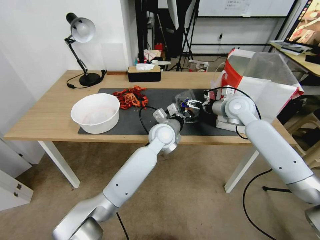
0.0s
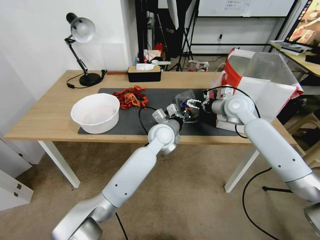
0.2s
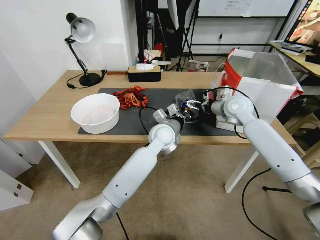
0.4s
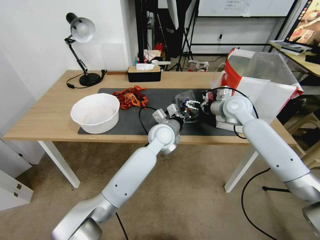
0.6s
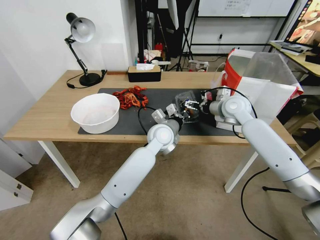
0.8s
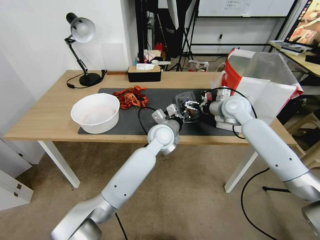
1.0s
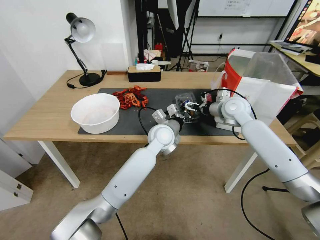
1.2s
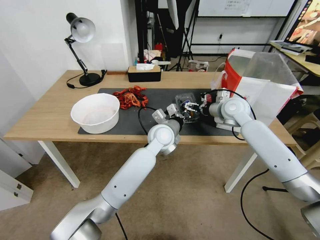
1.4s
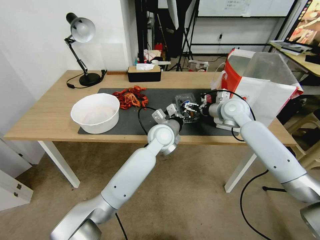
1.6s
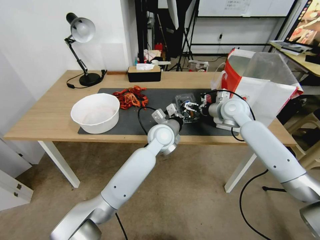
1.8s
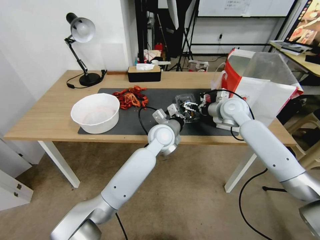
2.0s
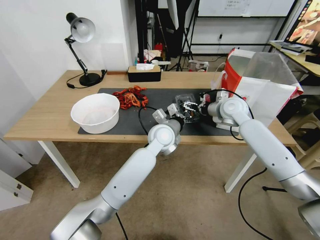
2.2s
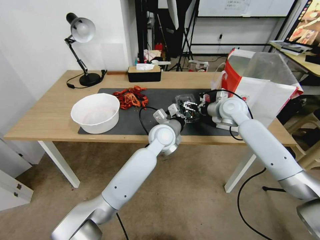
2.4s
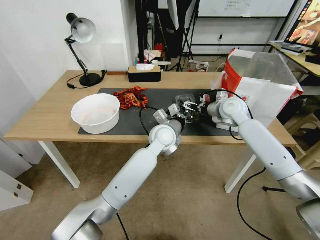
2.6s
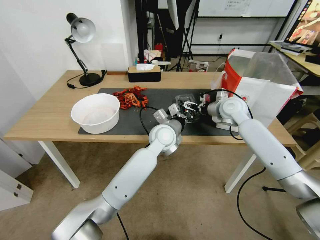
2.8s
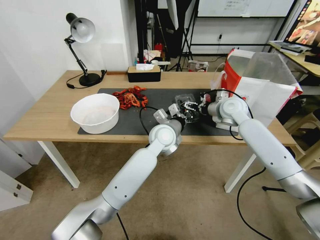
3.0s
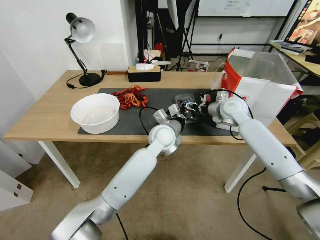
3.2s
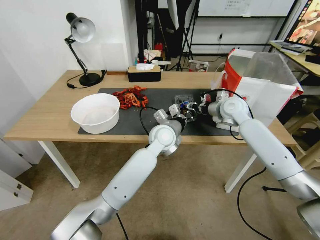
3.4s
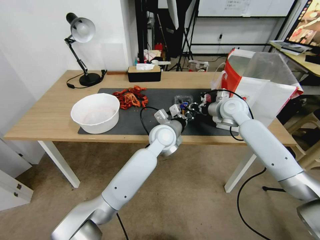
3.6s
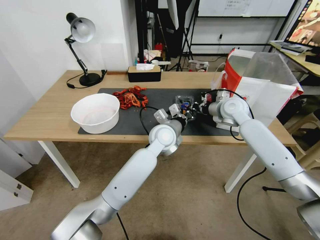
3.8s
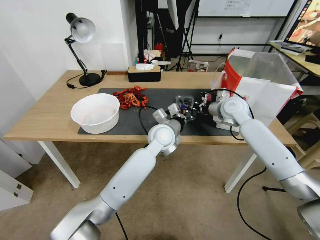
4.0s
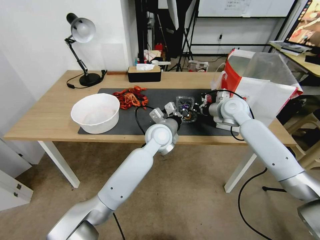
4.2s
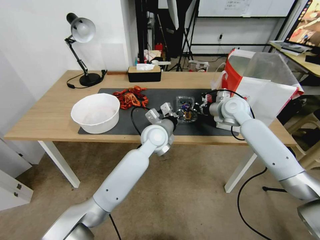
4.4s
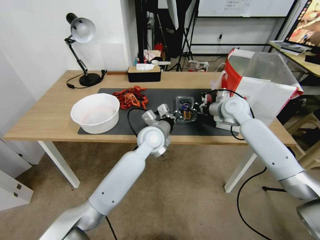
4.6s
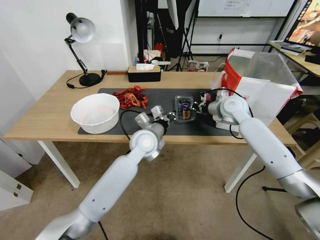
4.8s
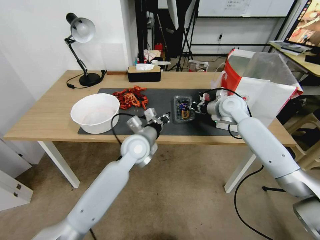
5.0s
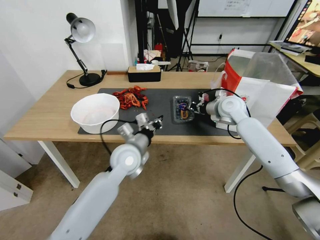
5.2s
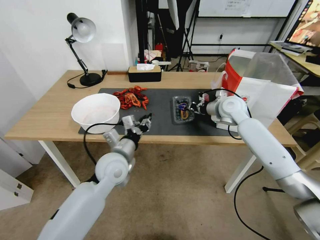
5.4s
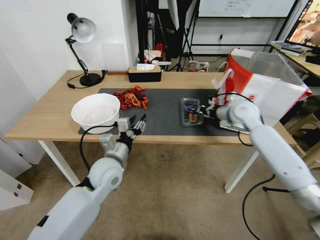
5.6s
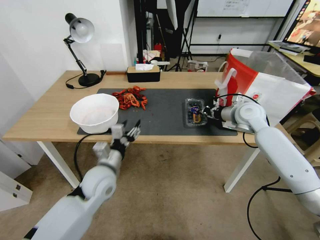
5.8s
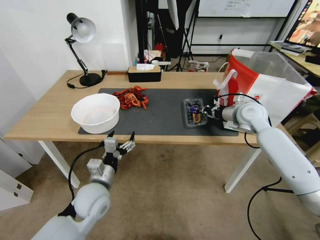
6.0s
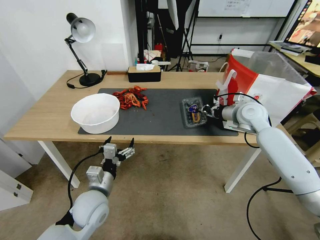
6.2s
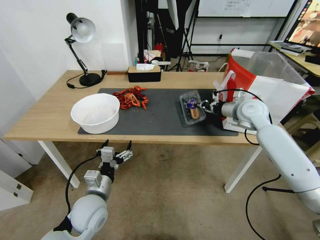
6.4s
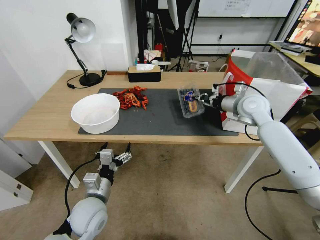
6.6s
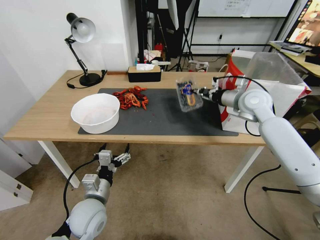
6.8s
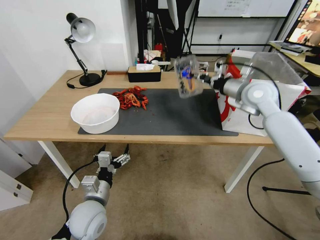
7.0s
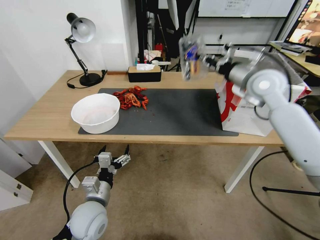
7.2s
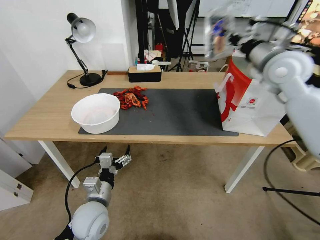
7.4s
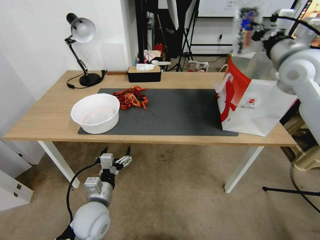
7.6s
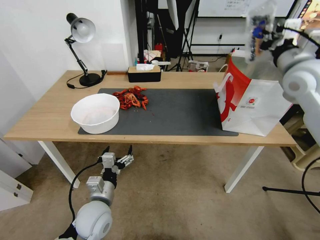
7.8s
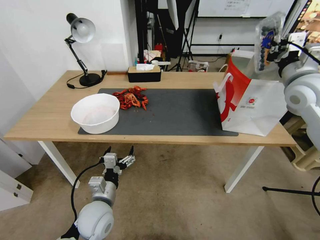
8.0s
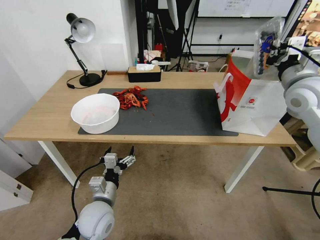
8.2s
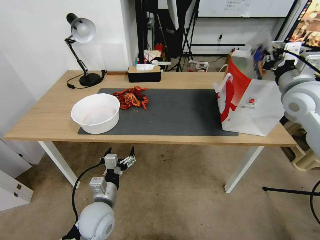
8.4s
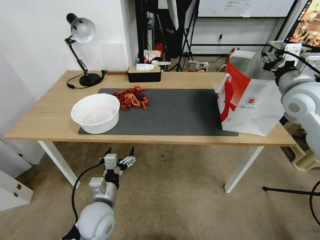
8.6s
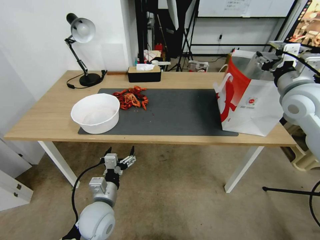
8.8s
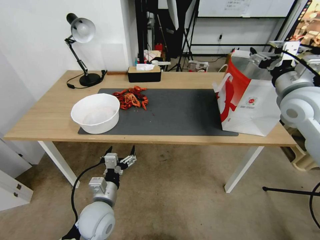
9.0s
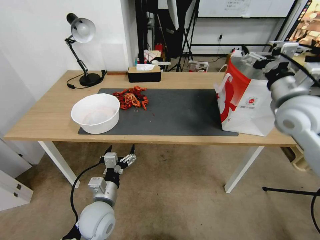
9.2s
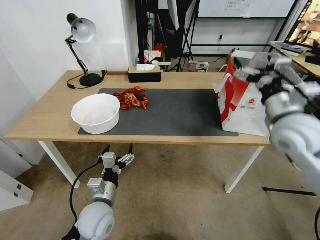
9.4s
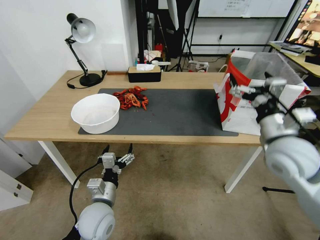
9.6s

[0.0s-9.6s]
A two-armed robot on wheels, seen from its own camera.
Task of the whole recording: Close the takeout container lid, then place the container into the takeout bag.
0.0s to 1.6s: There are only small adjustments of the grippers.
1.6s to 3.2s: The right gripper closes its fingers.
3.2s to 4.8s: The left gripper travels to the left by roughly 5 cm. The right gripper closes up.
4.8s to 6.4s: The left gripper moves backward, to the left and downward, some 25 cm, and opens up. Meanwhile the right gripper ends up about 5 cm from where it was.
6.4s to 8.0s: The right gripper travels upward and backward by some 15 cm.
8.0s to 9.6s: The right gripper heads backward, downward and to the left, covering roughly 20 cm, and opens.

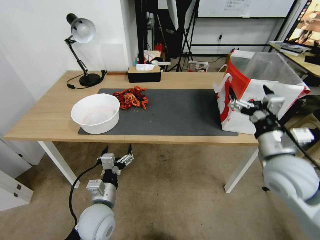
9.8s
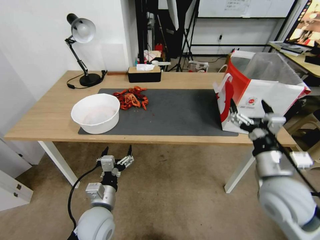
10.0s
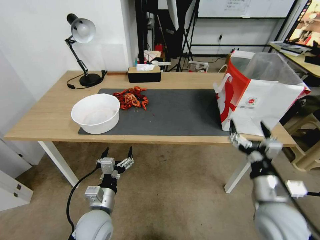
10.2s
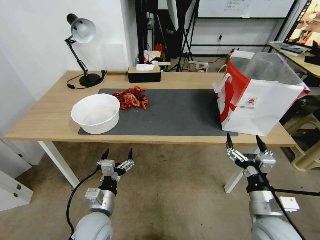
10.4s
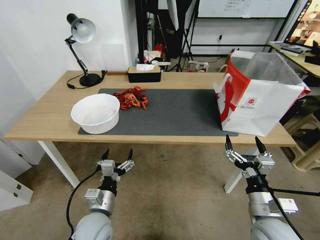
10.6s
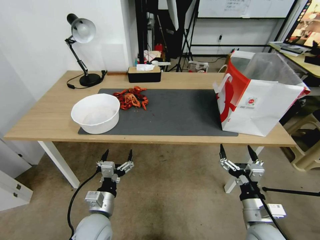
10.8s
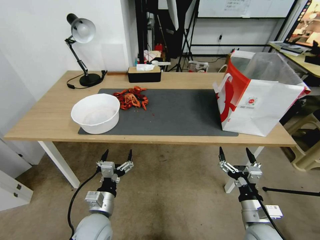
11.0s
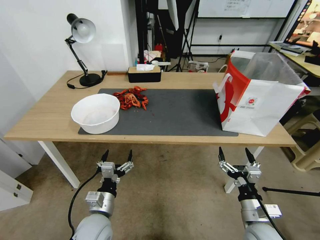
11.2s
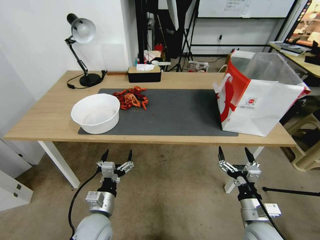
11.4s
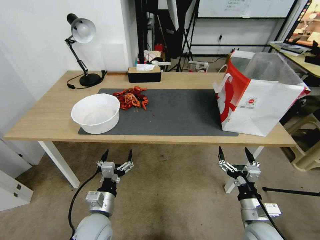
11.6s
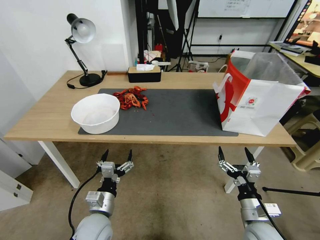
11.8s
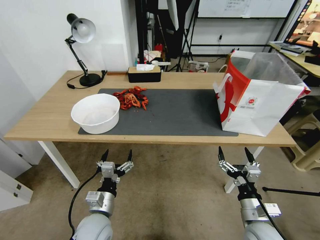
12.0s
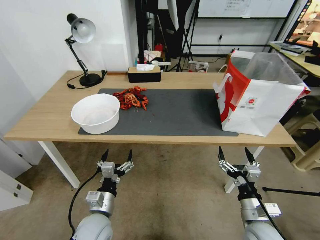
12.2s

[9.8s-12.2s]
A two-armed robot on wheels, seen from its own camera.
Task of the whole recording: Close the takeout container lid, then place the container into the takeout bag.
9.8s to 11.0s: The right gripper heads downward and backward, covering roughly 20 cm.
11.0s to 12.2s: The grippers move only a little.
